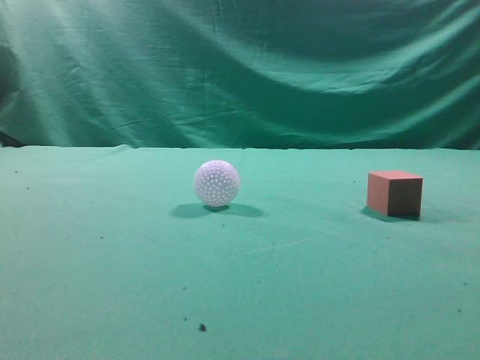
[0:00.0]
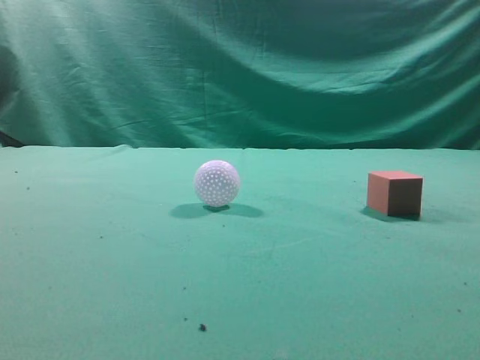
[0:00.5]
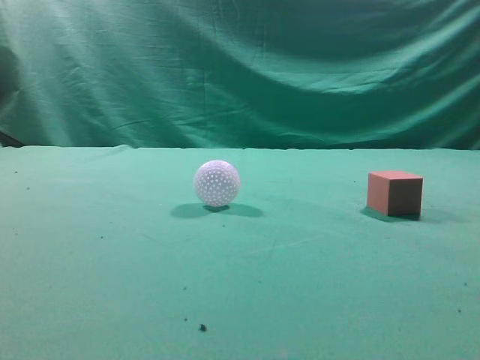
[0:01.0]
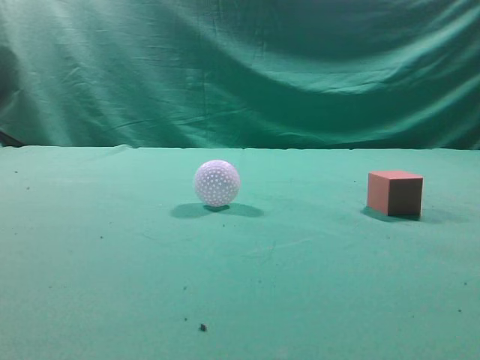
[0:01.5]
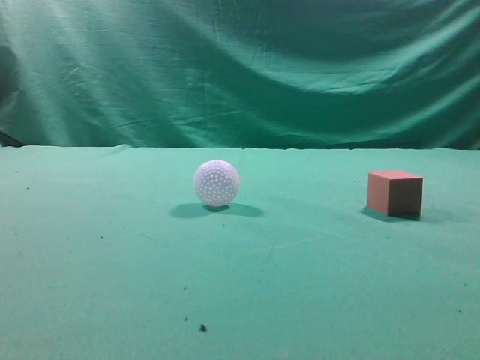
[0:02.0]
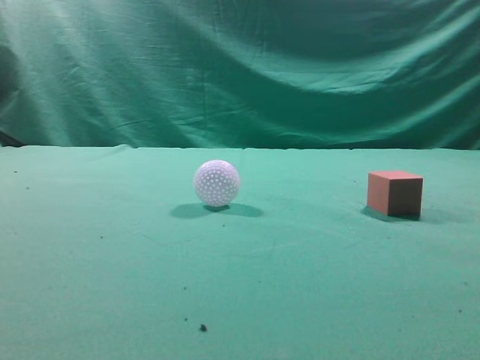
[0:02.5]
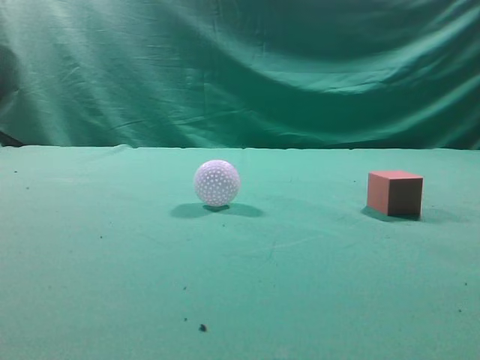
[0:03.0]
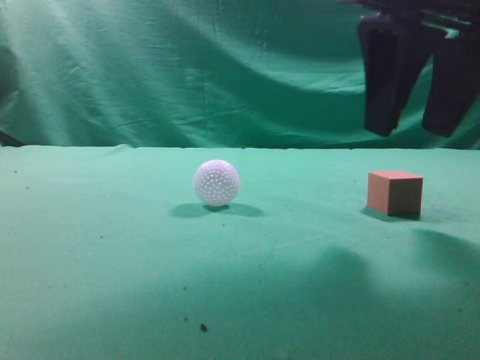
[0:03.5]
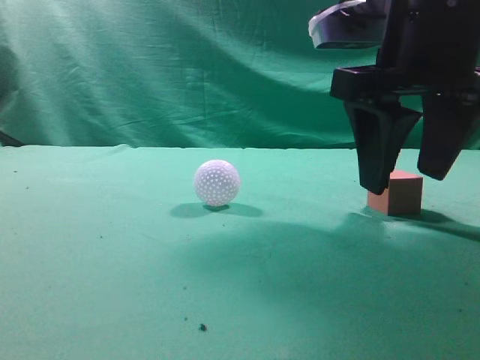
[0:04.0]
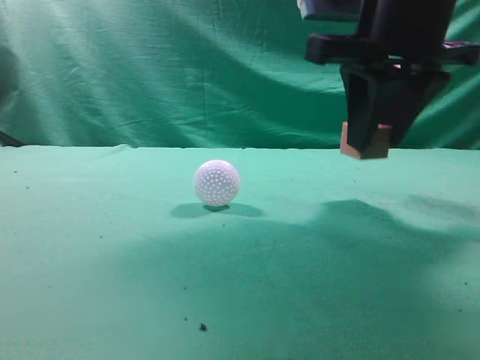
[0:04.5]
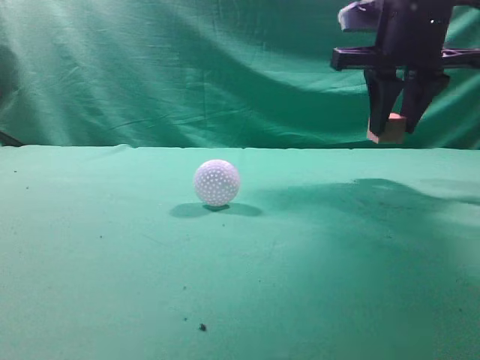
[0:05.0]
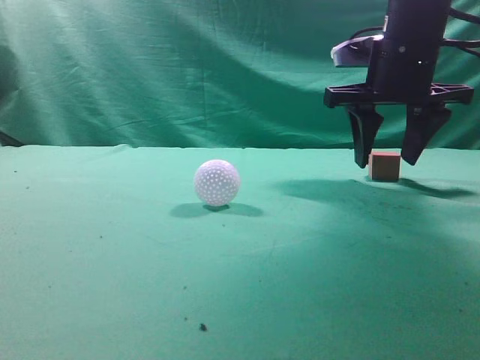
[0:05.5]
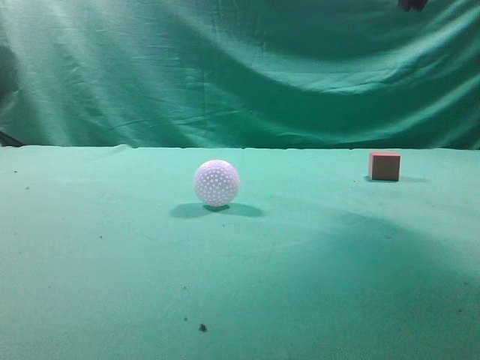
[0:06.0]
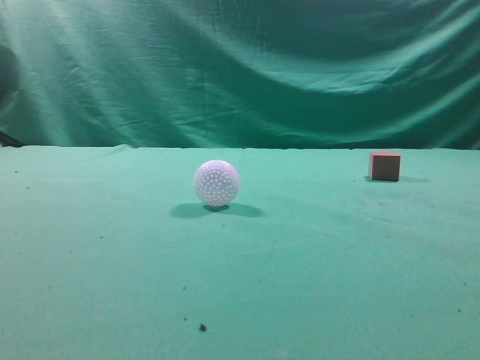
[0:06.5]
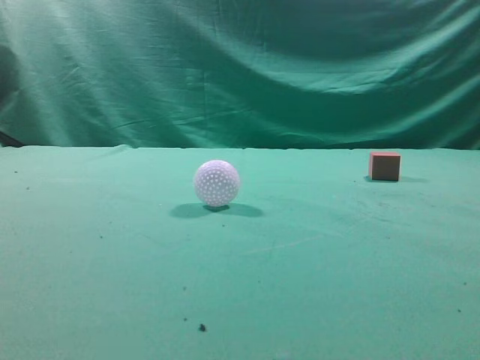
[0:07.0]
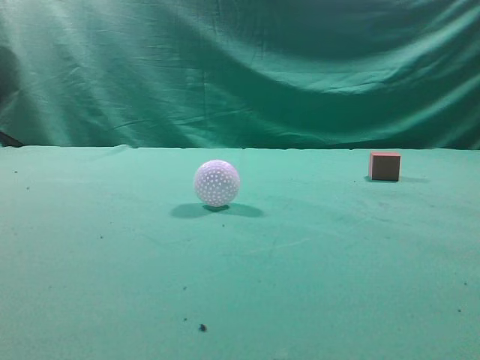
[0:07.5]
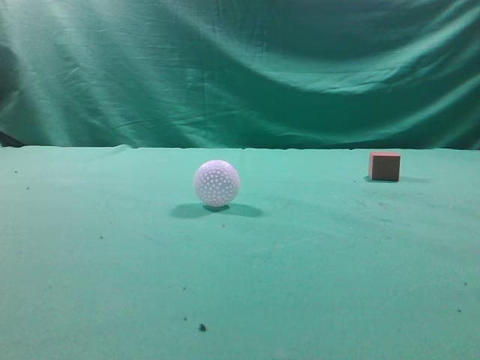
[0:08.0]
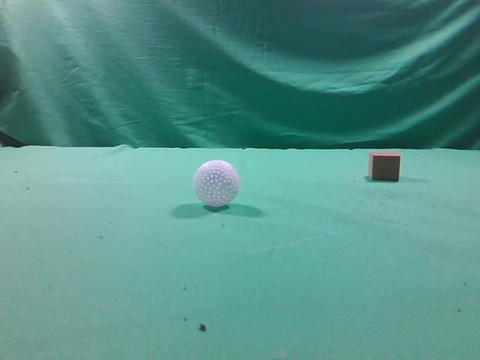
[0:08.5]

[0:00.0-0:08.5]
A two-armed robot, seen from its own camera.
Task of the whole recording: pick up the cube block and place it in another position on the table.
Step, 0:00.0 to 0:04.0: Pick up the small cube.
Step, 0:04.5 to 0:05.5: Place the small cube on the ahead of the table.
0:02.0 to 0:04.0: The right gripper travels forward, to the left and downward by roughly 30 cm, and opens up.
0:04.0 to 0:06.5: The right gripper moves upward, to the right and backward, roughly 20 cm, and closes up.
